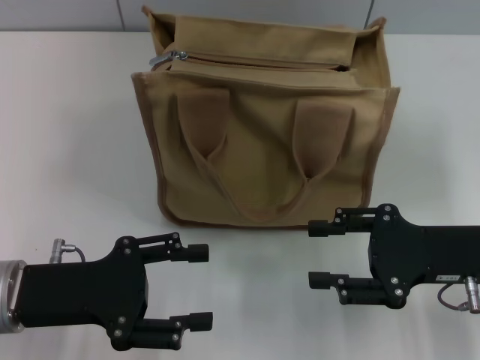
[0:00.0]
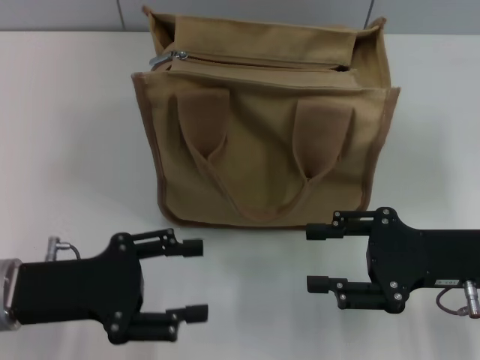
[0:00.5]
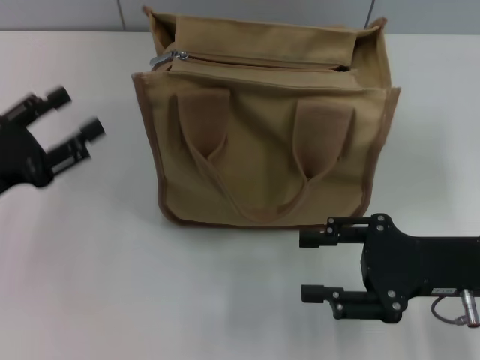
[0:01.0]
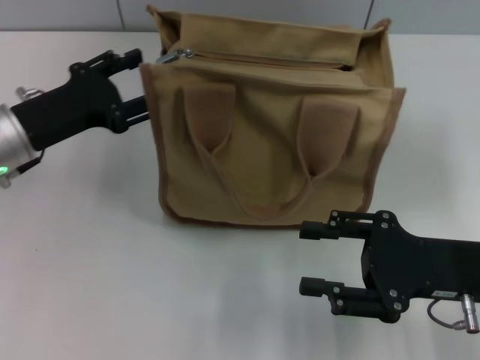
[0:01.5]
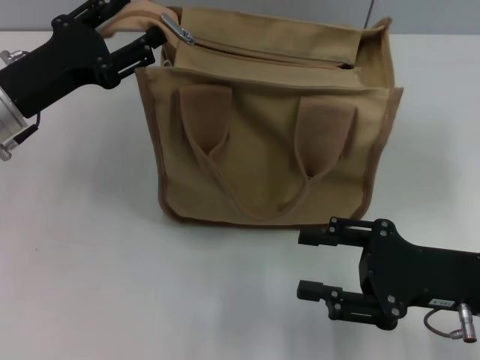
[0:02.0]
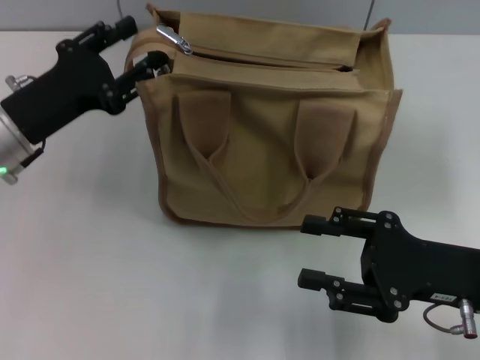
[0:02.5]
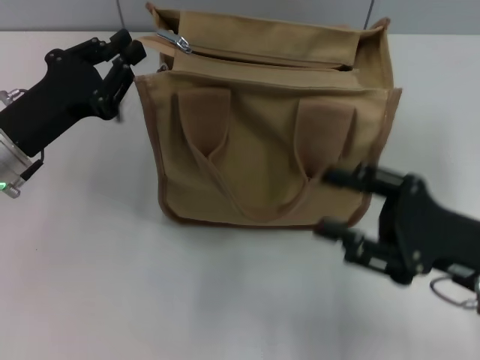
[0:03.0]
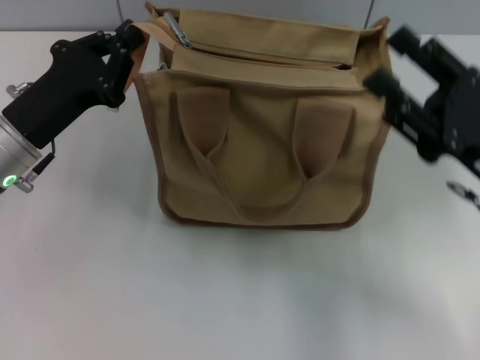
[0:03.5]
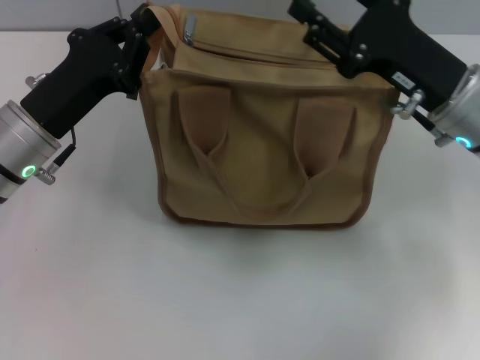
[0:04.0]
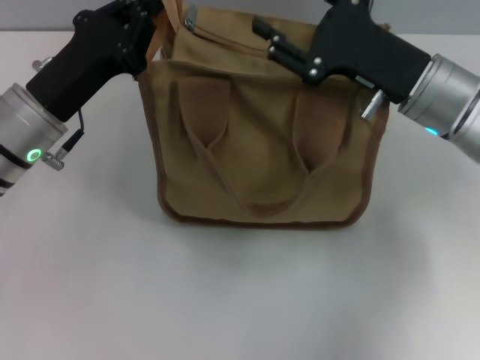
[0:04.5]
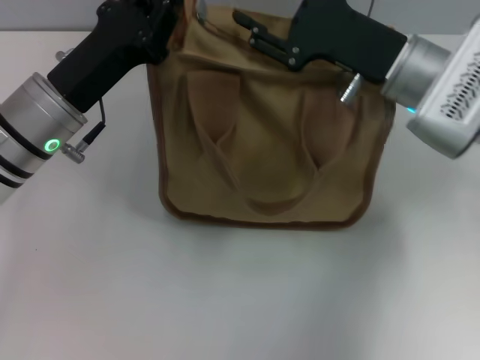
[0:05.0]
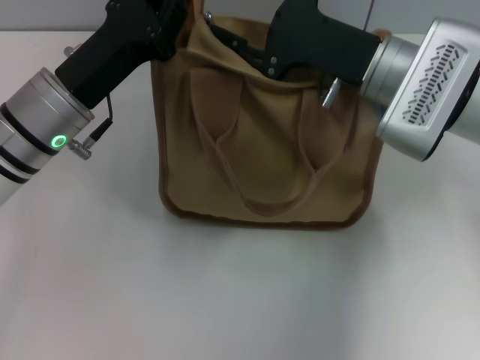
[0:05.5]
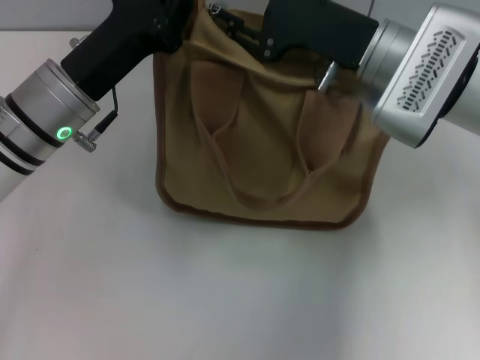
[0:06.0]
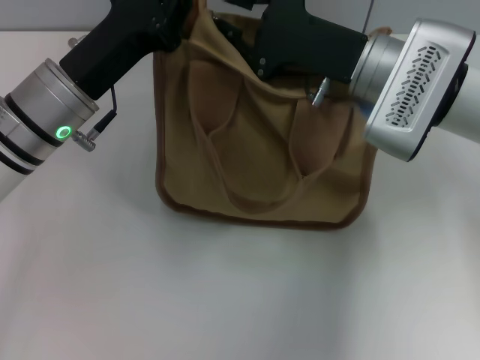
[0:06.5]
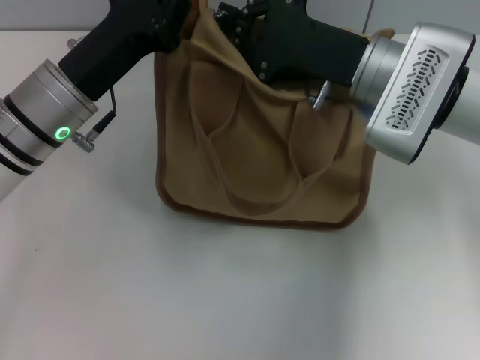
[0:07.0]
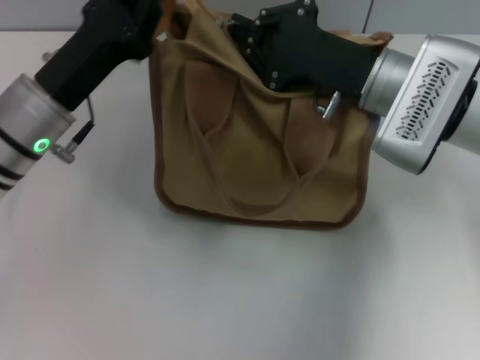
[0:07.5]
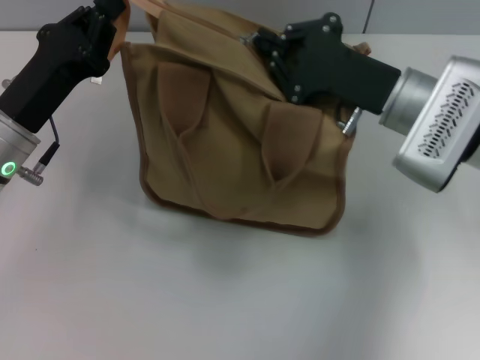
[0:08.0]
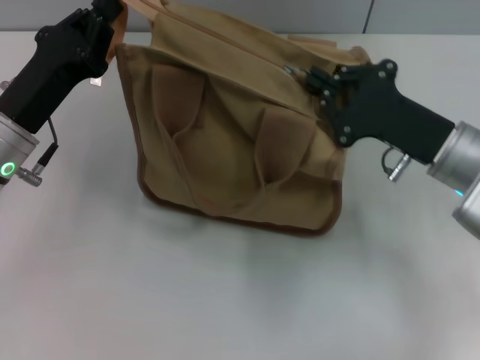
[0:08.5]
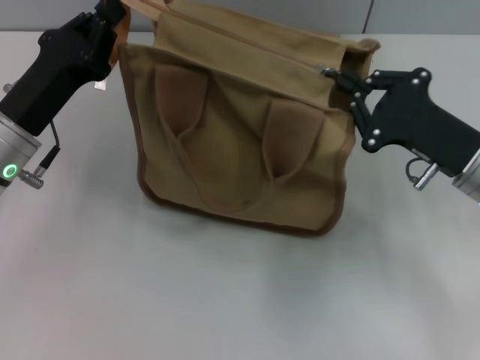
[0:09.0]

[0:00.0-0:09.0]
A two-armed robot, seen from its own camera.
0:00.0 to 0:02.0: The left gripper moves forward, some 10 cm.
0:02.0 to 0:04.5: The left gripper closes up. Meanwhile the right gripper moves forward, to the left and upward, about 15 cm.
0:04.5 to 0:07.0: The right gripper closes its fingers.
0:07.0 to 0:09.0: The right gripper travels to the right, backward and downward by some 15 cm; the left gripper shifts by roughly 5 cm.

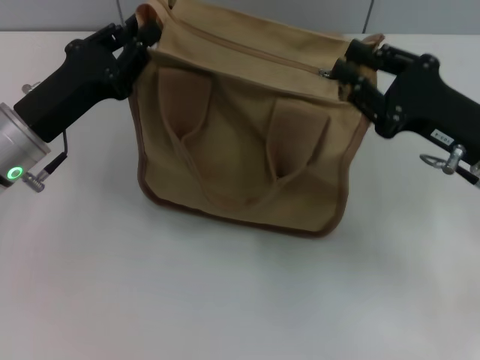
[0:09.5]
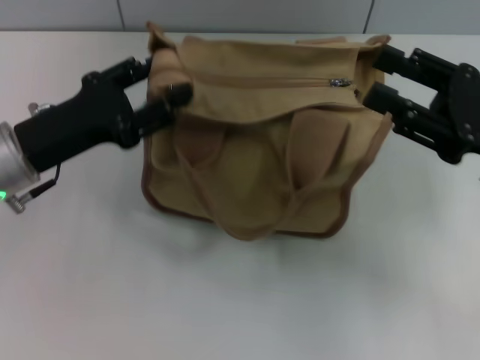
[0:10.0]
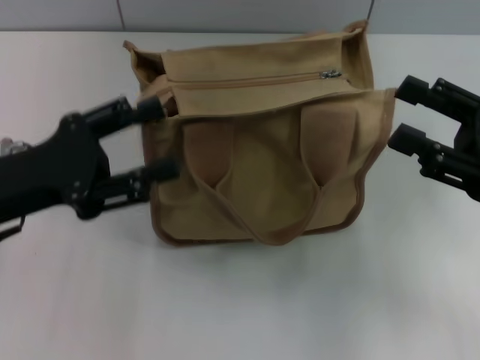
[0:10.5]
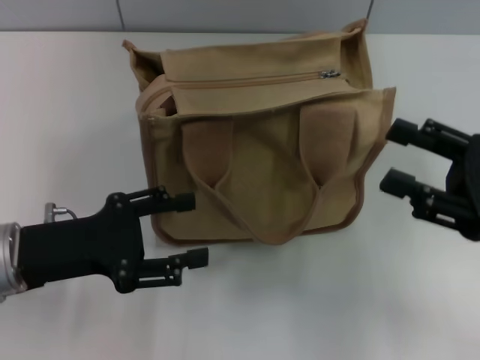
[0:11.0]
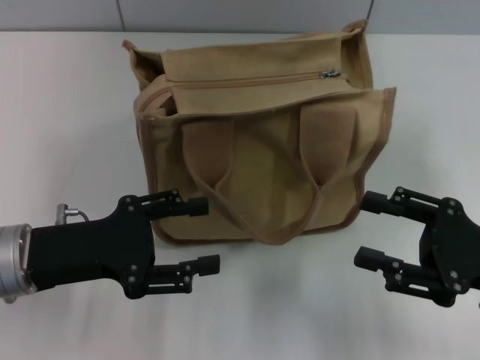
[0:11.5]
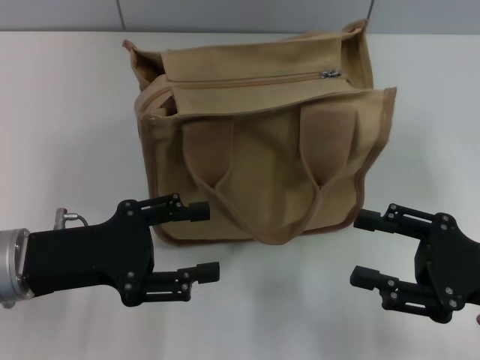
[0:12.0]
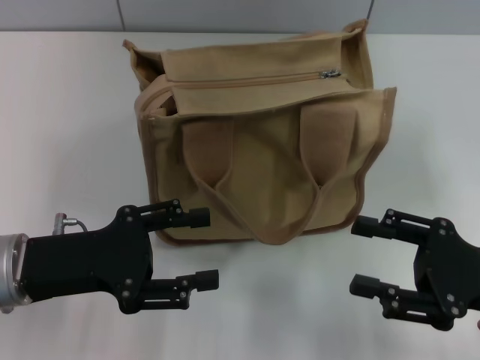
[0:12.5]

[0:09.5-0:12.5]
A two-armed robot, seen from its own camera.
0:09.5 to 0:11.0: Both grippers move backward, approximately 5 cm. The right gripper opens its fingers, while the left gripper opens.
0:11.0 to 0:12.5: There are only small adjustments of the grippers.

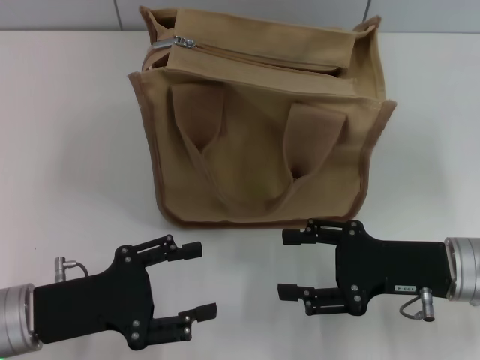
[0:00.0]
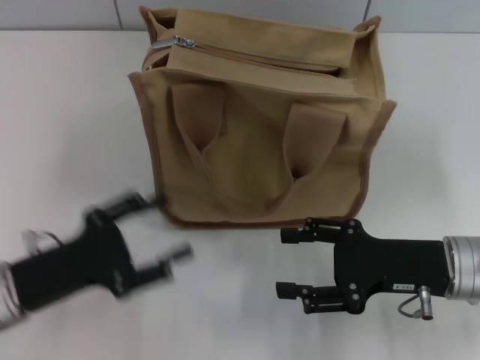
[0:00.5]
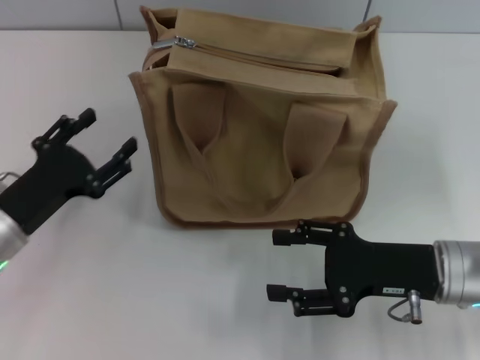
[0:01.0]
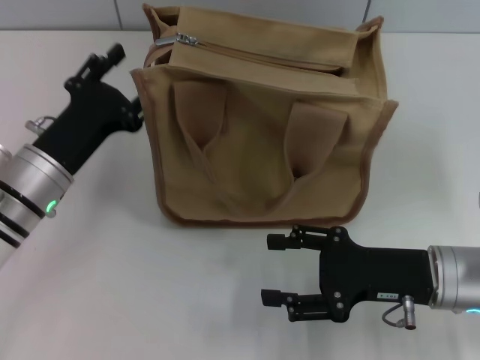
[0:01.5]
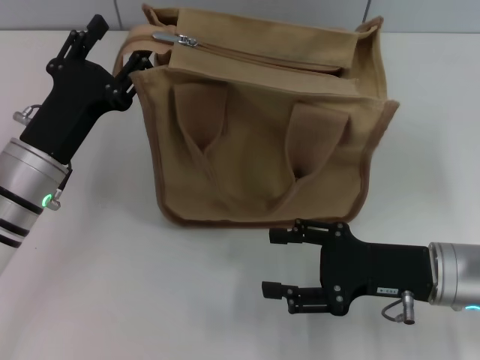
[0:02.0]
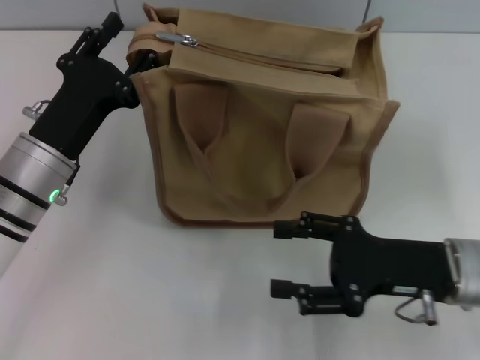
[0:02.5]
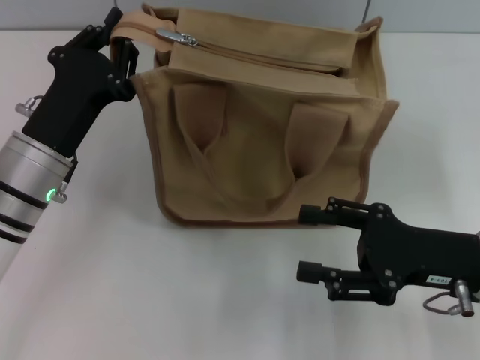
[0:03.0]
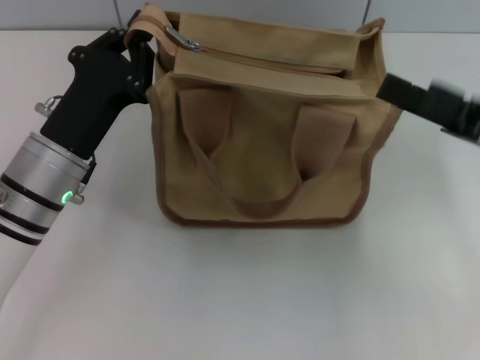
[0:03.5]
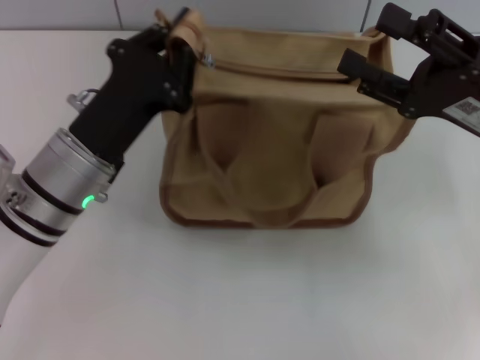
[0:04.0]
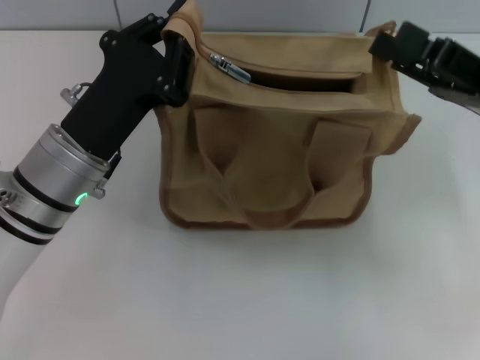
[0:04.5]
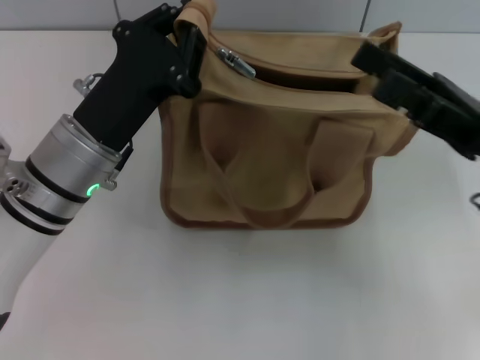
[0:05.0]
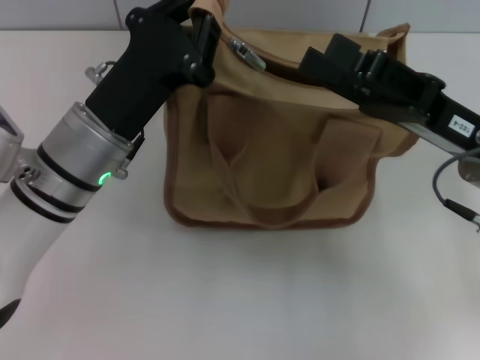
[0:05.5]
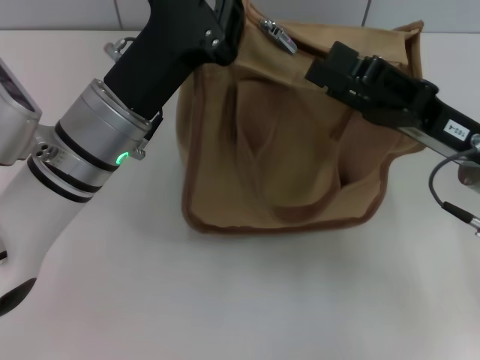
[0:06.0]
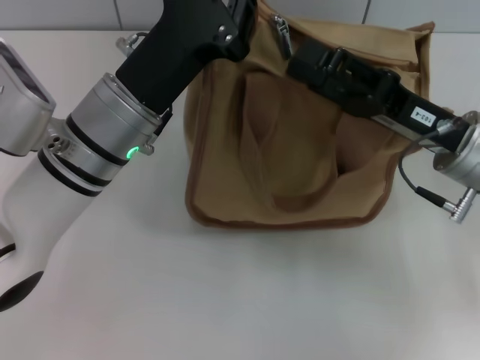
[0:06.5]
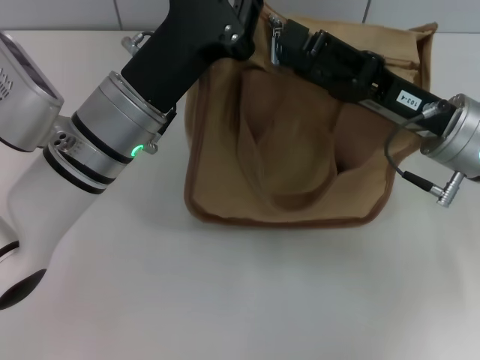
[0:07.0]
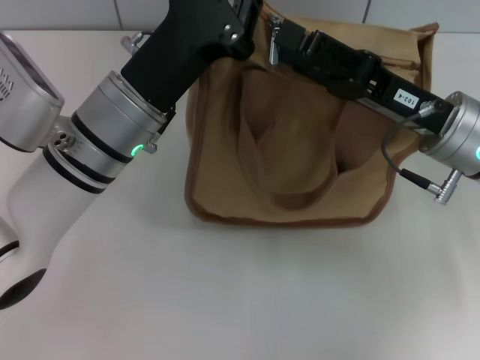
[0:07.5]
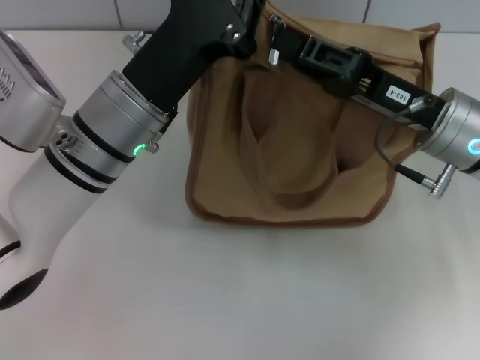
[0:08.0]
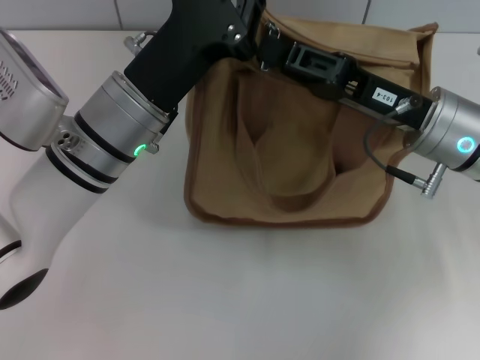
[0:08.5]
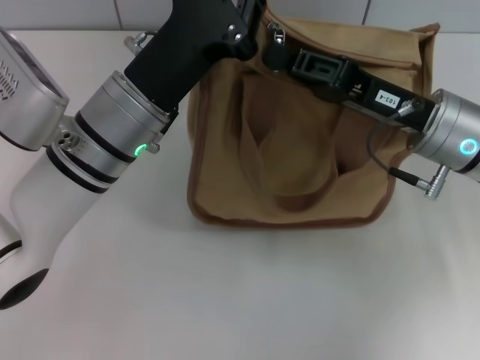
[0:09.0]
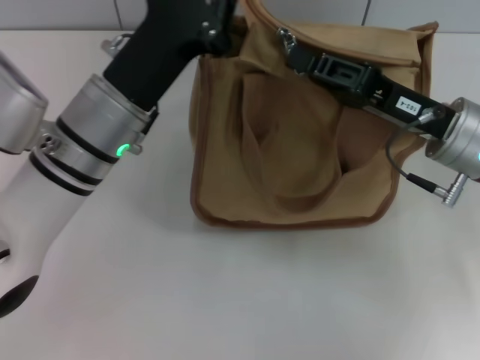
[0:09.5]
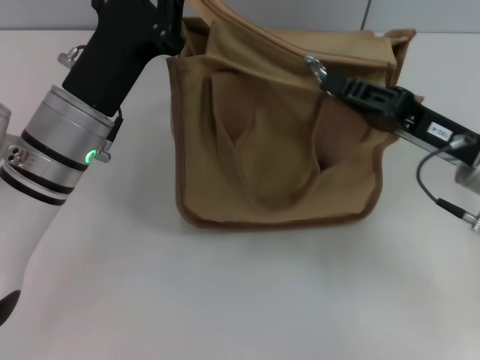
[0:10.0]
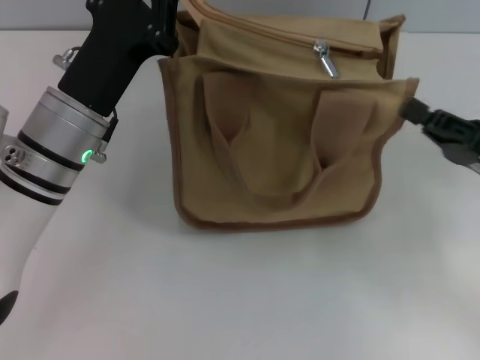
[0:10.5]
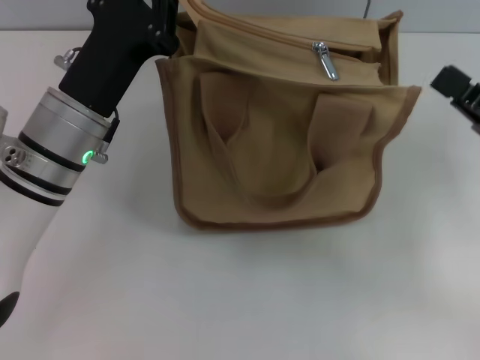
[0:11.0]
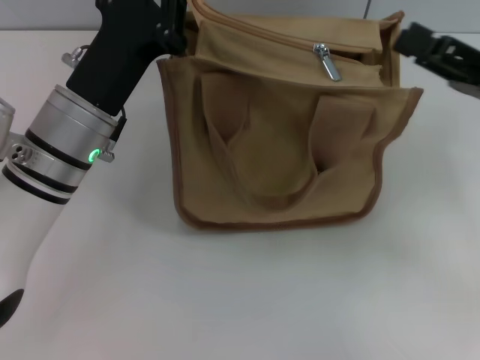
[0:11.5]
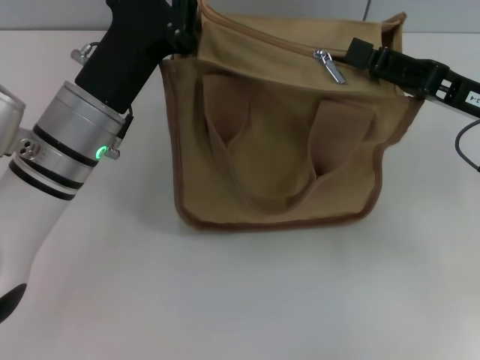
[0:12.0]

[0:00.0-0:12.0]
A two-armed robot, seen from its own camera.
0:00.0 to 0:02.0: The left gripper goes approximately 10 cm forward.
0:02.0 to 0:04.0: The right gripper heads upward and forward, covering approximately 10 cm. Meanwhile the left gripper closes up.
0:04.0 to 0:06.0: The left gripper shifts by about 5 cm.
0:06.0 to 0:08.0: The right gripper closes up.
0:08.0 to 0:10.0: The right gripper moves about 5 cm, and closes.
0:10.0 to 0:12.0: The right gripper opens.

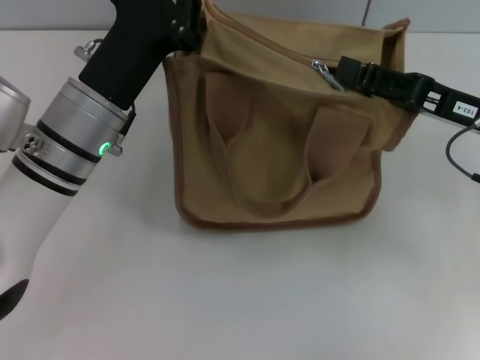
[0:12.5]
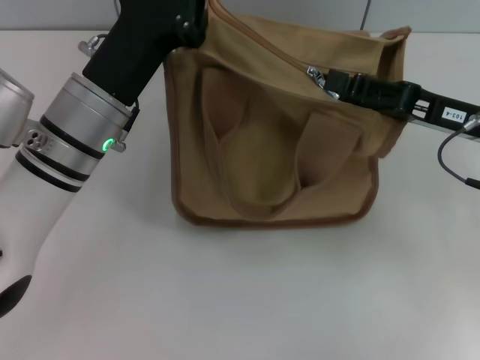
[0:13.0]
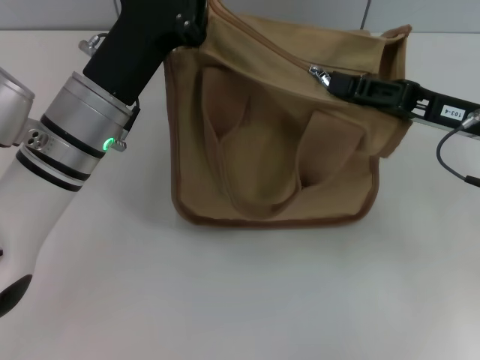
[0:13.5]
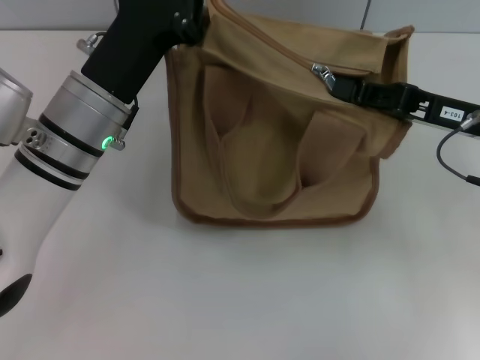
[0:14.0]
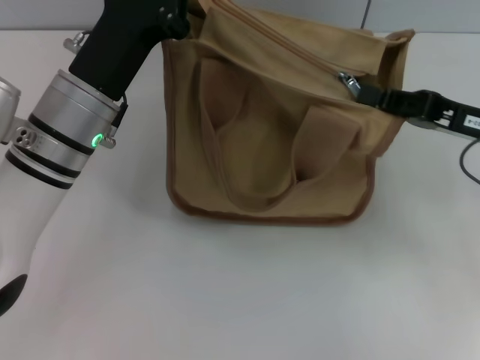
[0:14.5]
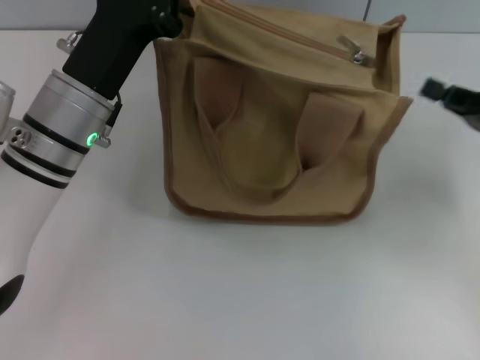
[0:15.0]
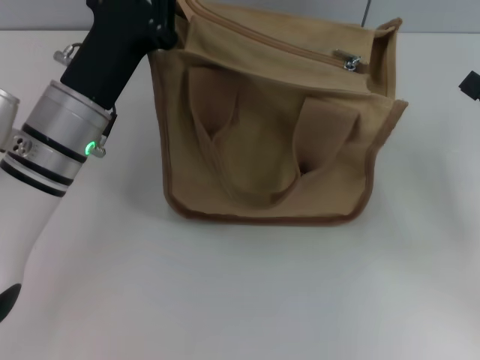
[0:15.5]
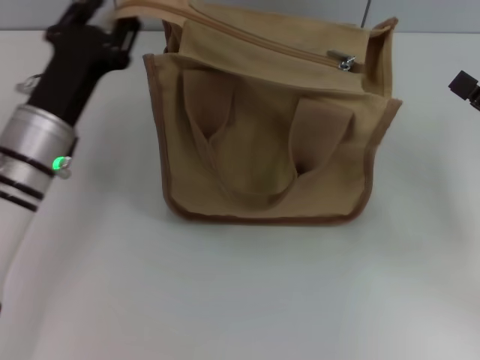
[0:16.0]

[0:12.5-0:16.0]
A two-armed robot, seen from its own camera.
Step, 0:12.5 to 0:14.5: Pull up the zipper with your right hand.
0:12.5 to 0:14.5: The right gripper closes.
0:14.5 to 0:16.0: The right gripper travels backward and to the right by roughly 10 cm, and opens.
